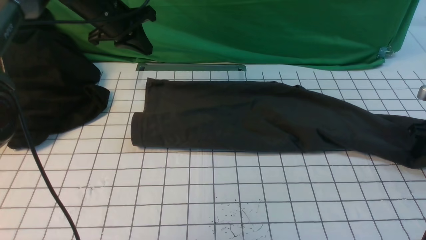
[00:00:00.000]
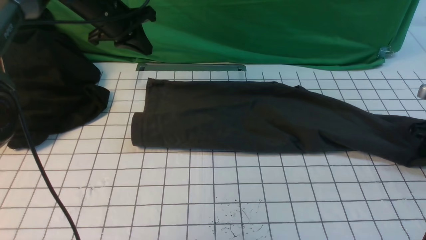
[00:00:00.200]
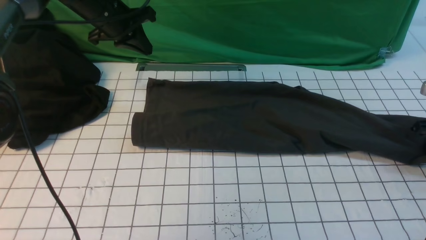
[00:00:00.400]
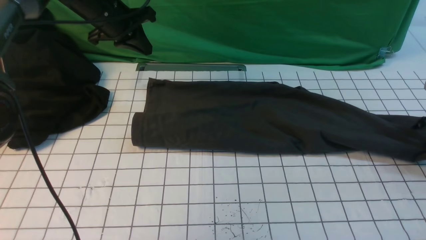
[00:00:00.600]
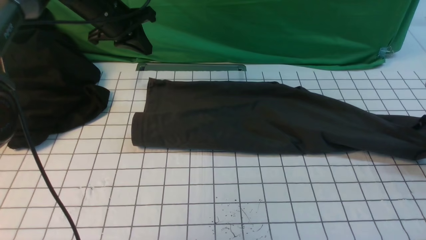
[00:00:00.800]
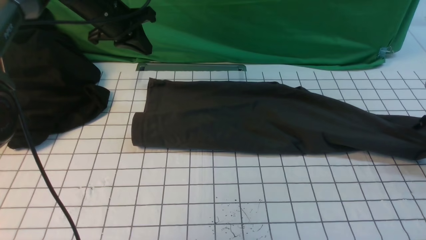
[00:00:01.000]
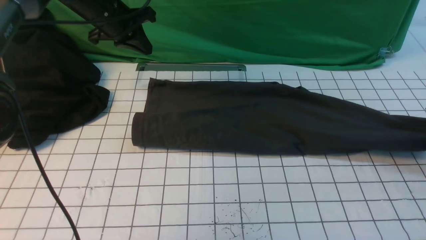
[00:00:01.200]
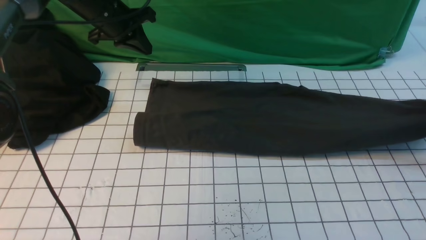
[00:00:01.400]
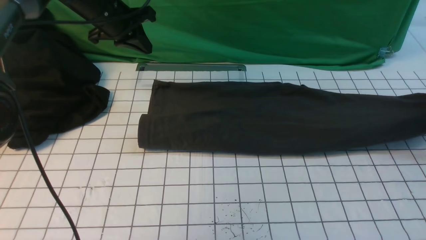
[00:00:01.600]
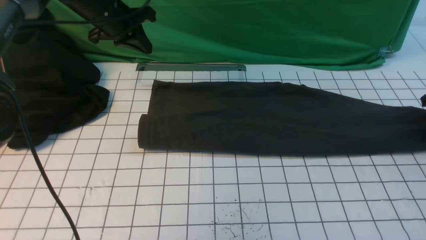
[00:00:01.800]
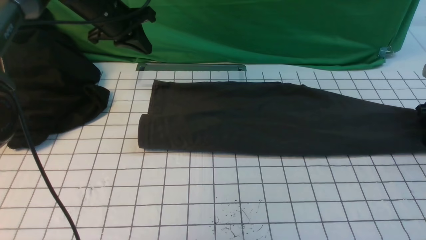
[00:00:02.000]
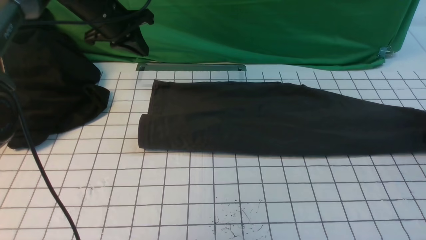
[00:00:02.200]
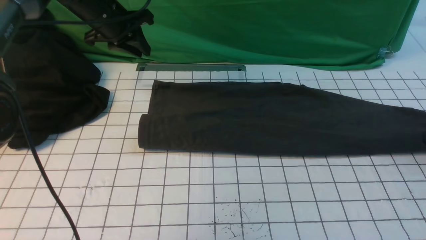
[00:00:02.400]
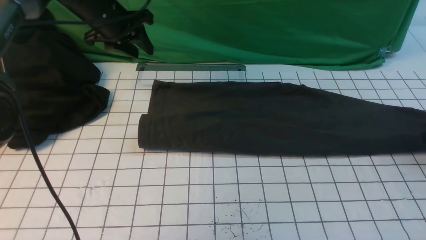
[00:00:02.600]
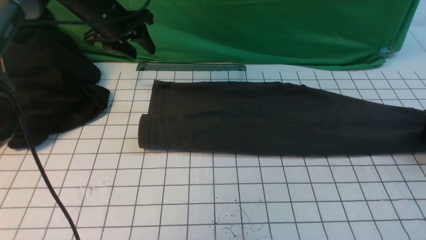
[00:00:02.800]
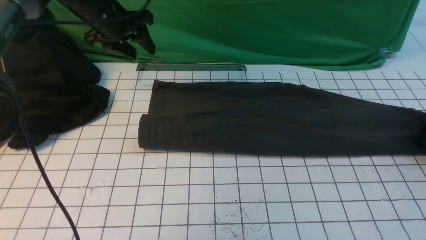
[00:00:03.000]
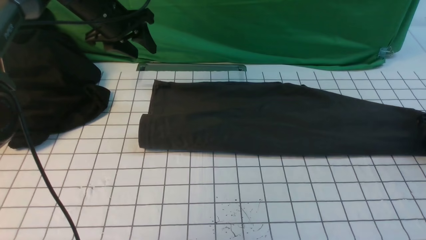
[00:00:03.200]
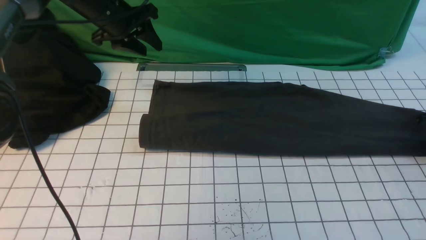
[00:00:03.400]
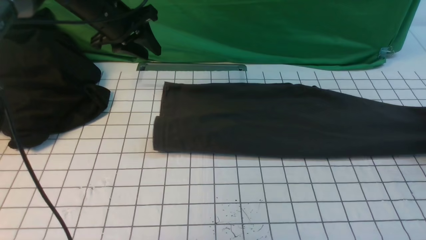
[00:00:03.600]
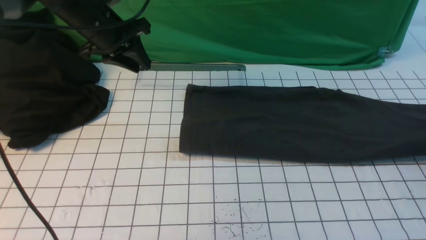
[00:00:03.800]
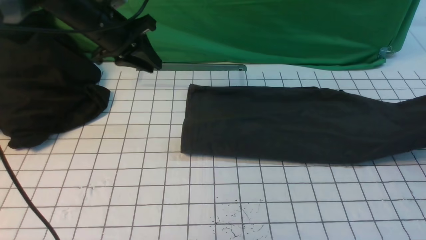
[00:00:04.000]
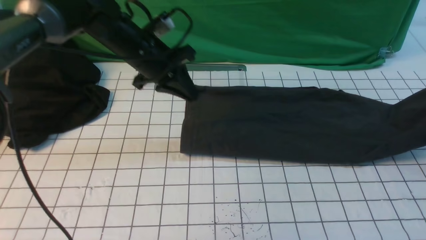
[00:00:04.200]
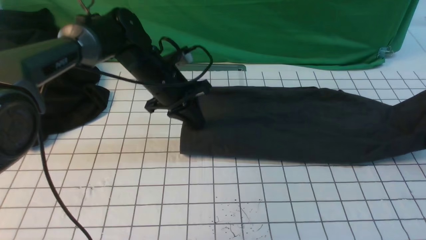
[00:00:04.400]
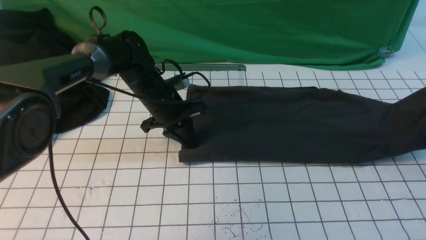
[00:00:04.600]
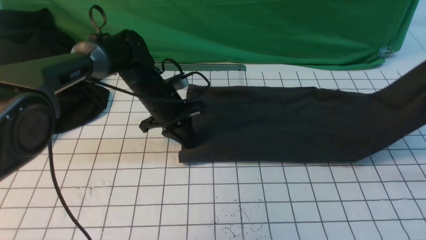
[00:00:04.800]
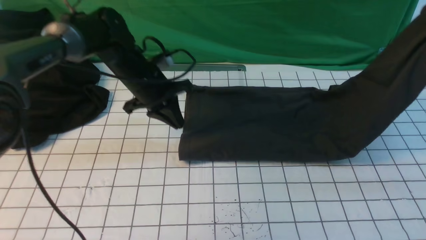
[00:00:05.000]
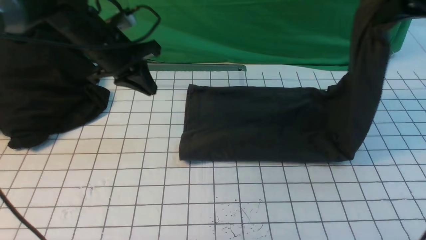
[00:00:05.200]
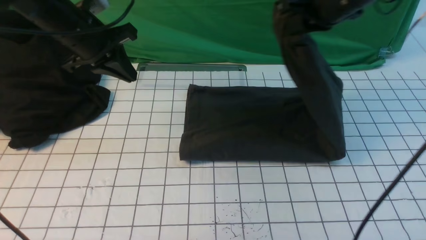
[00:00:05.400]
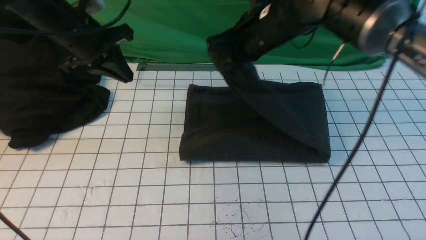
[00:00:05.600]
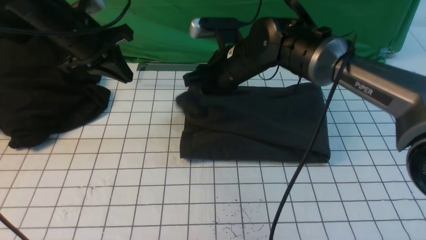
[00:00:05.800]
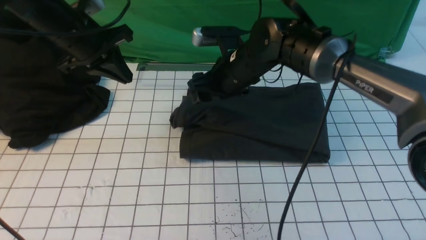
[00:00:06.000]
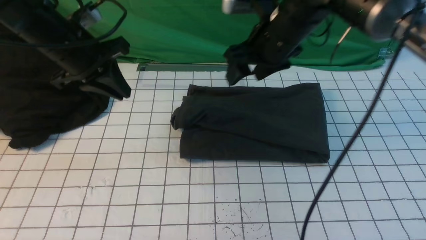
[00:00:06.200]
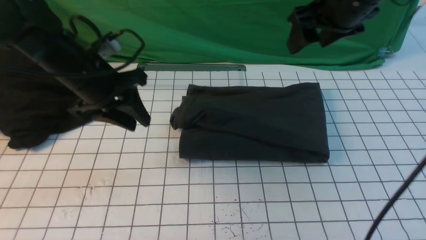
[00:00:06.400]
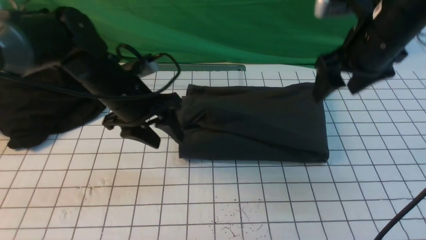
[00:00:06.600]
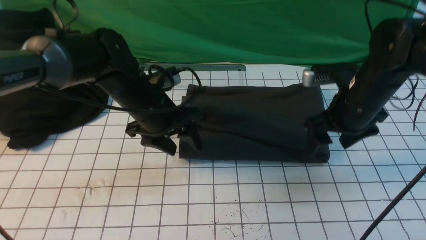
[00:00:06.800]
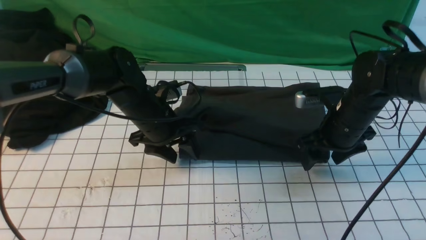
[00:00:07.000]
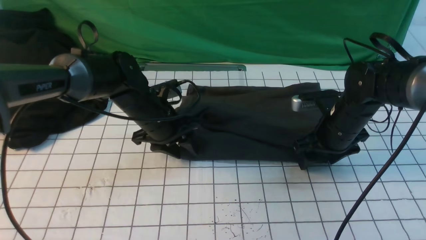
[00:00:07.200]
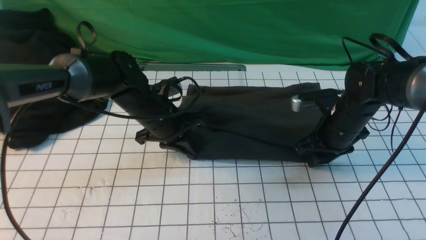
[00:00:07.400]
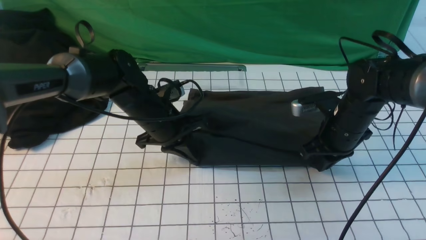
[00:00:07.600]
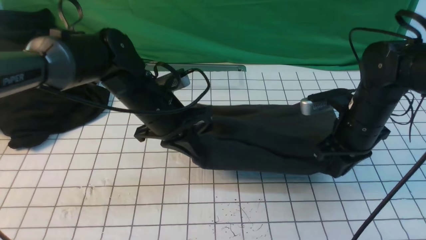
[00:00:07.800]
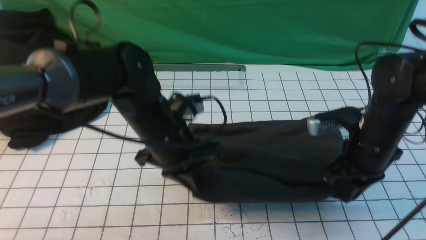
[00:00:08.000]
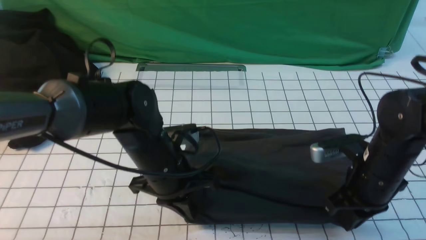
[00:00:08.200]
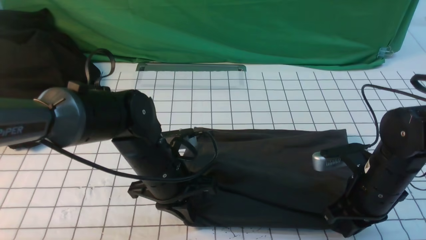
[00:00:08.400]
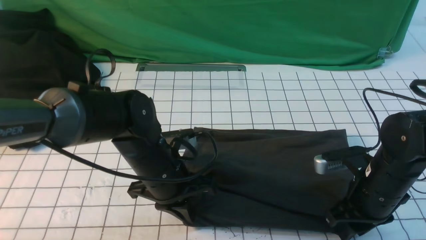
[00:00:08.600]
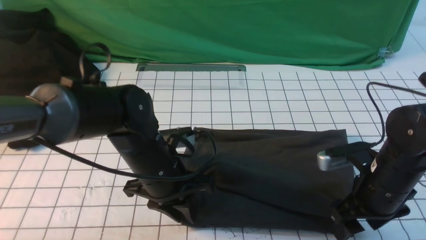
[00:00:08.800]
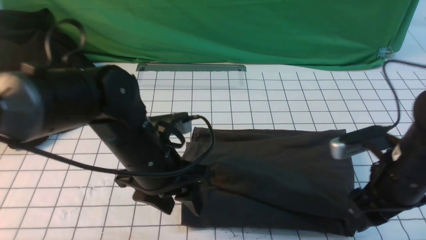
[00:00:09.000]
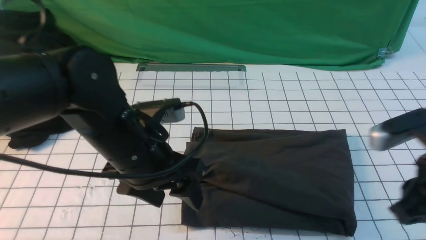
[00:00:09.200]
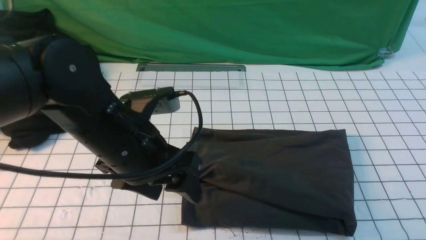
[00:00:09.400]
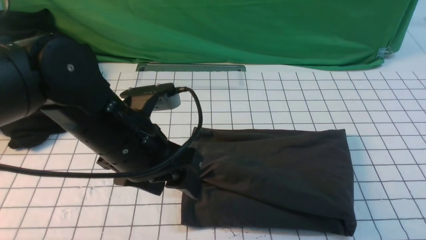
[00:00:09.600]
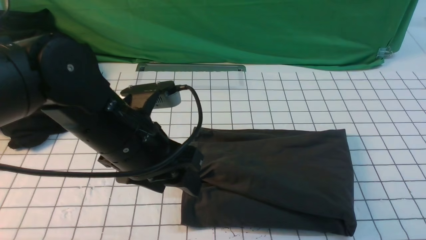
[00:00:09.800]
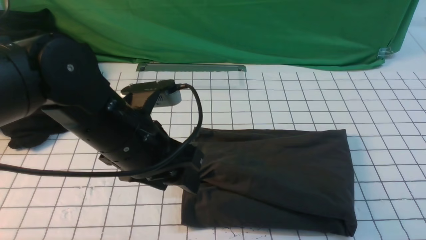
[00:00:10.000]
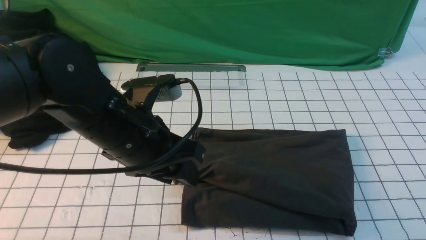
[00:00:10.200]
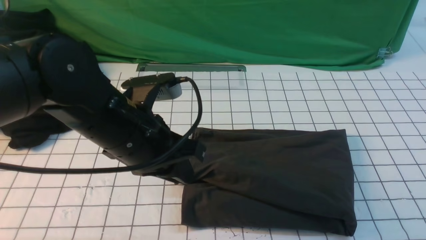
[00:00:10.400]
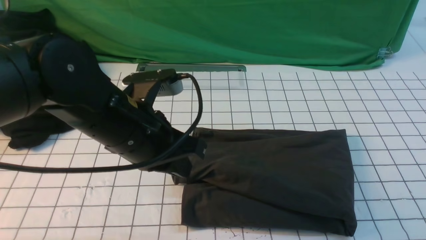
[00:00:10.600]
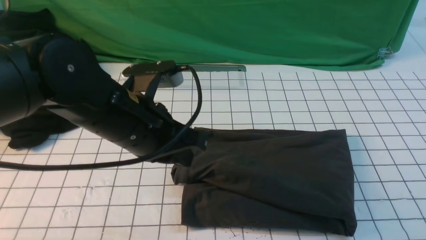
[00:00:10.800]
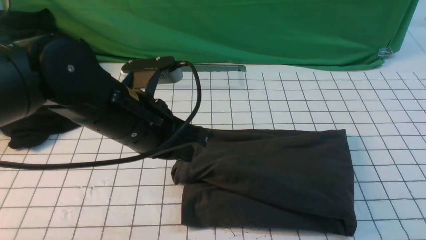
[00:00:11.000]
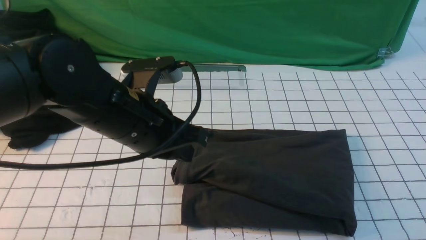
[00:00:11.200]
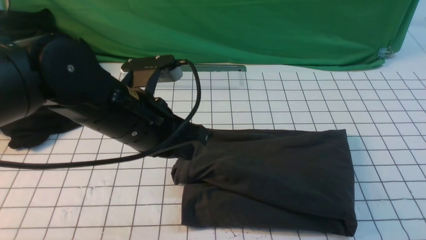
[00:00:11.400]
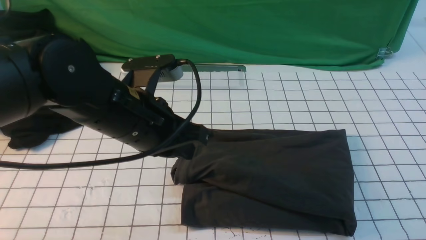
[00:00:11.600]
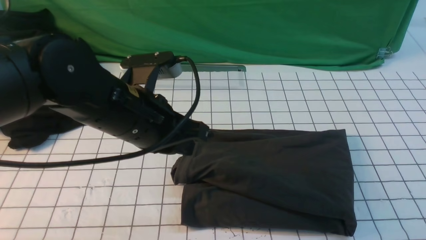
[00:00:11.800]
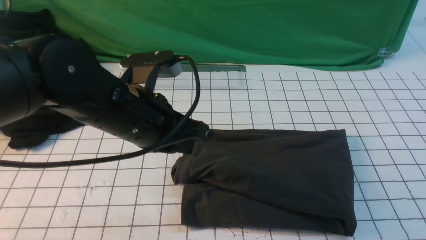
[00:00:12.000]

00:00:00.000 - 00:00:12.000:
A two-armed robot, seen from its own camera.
Step, 00:00:00.000 - 00:00:03.200: use the right arm to clamp the right edge of the fabric.
Step, 00:00:03.400 - 00:00:05.800: use the right arm to drag the right edge of the fabric to the left and folds it over the left edge.
00:00:00.000 - 00:00:01.600: The right gripper goes about 5 cm upward.
00:00:01.600 - 00:00:03.000: The left gripper opens up, while the right gripper shifts approximately 5 cm downward, and opens up.
00:00:03.000 - 00:00:04.400: The left gripper travels to the right, downward and backward by about 15 cm, and closes, while the right gripper is displaced upward by about 15 cm, and closes.
00:00:04.400 - 00:00:06.000: The right gripper goes roughly 40 cm to the left, and opens up. The left gripper is displaced to the left and upward by roughly 15 cm.
00:00:06.000 - 00:00:07.600: Both grippers travel together to the right and downward, some 15 cm. The left gripper opens and closes again, while the right gripper closes up.
00:00:07.600 - 00:00:09.000: The right gripper shifts approximately 15 cm backward and upward, and opens its fingers, while the left gripper shifts about 10 cm backward, and opens up.
00:00:09.000 - 00:00:10.400: The left gripper goes roughly 5 cm upward, and closes. Meanwhile the right gripper is displaced backward and upward by some 20 cm, and closes.
00:00:10.400 - 00:00:12.000: The right gripper is displaced downward by about 10 cm.

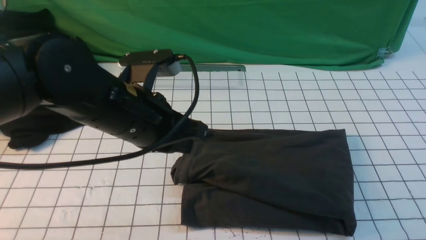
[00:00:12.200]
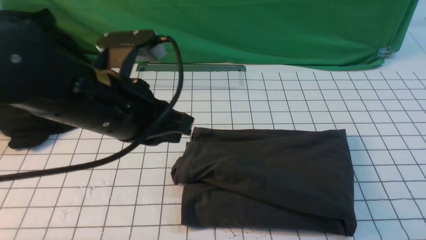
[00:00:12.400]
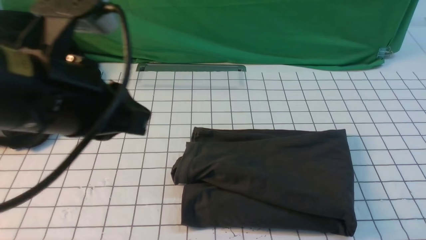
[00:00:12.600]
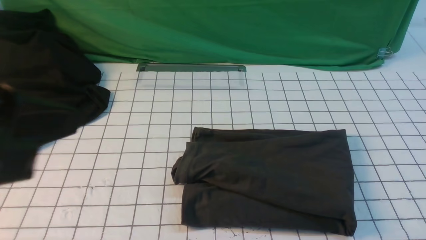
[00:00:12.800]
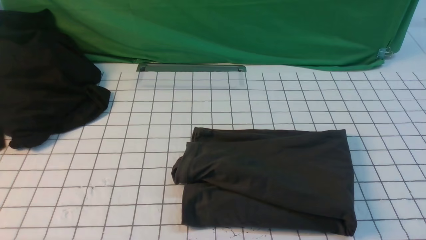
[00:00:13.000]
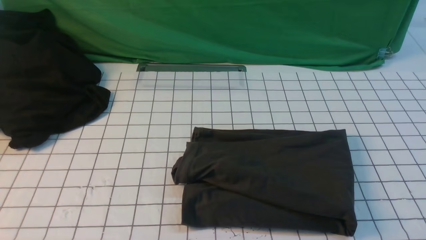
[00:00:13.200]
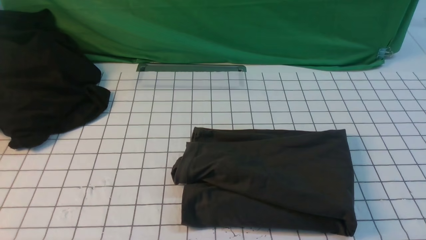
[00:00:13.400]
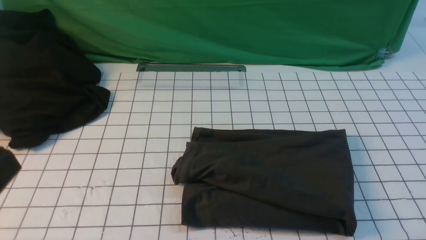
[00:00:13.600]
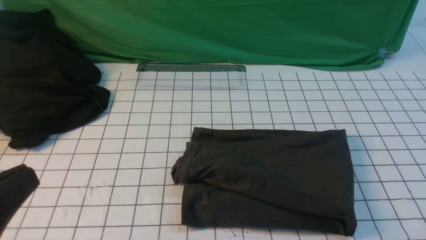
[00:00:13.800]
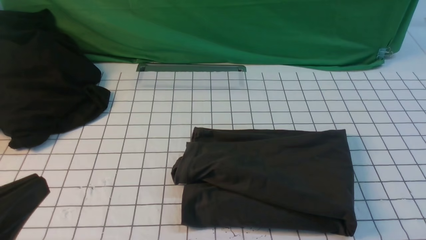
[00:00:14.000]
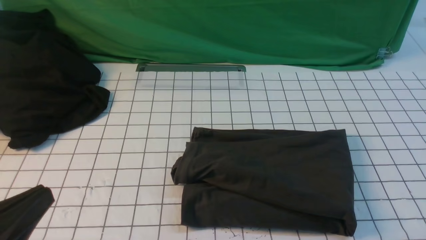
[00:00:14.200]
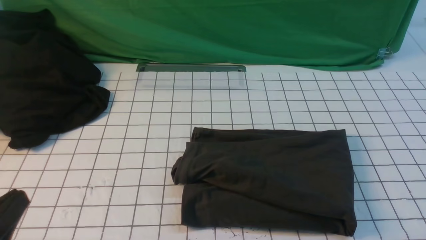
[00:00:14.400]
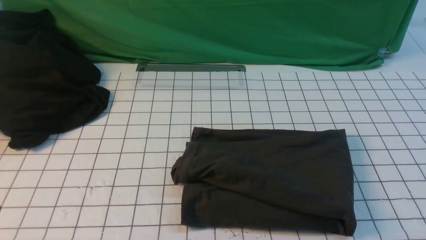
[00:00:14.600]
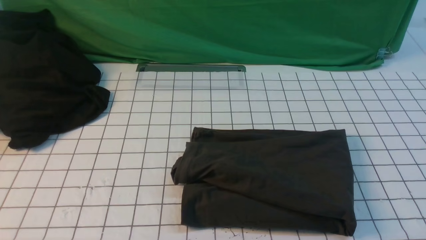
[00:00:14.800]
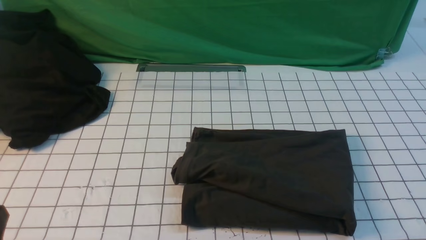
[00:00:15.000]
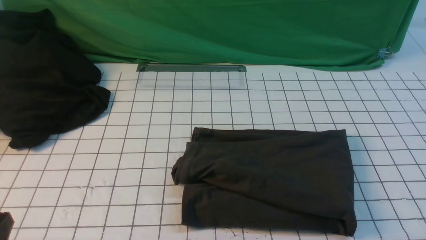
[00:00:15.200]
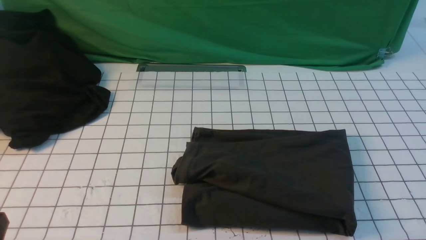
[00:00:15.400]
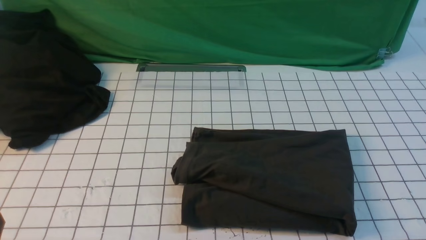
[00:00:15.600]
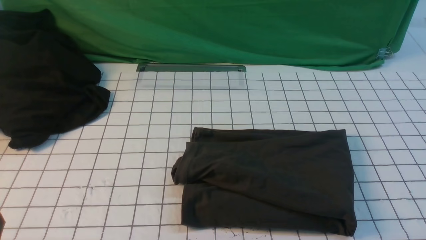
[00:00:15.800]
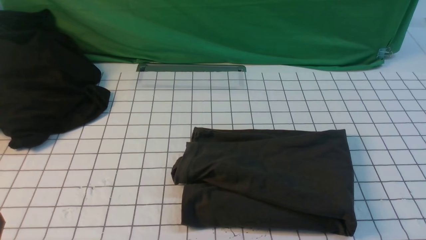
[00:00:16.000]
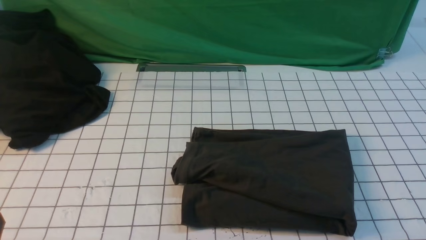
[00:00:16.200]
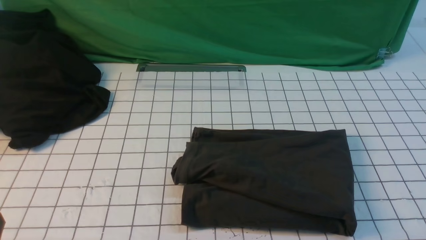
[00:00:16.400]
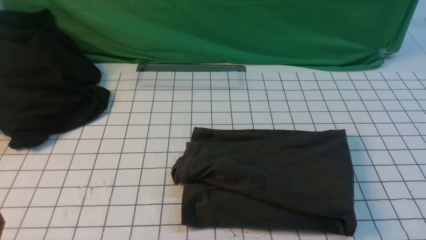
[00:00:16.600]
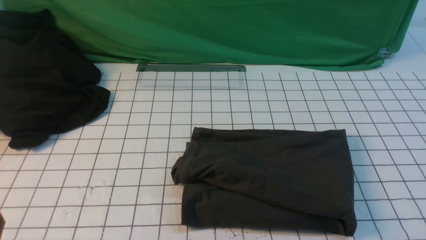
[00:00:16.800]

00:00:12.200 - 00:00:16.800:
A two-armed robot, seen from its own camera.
00:00:12.200 - 00:00:13.800: The left gripper shifts approximately 25 cm backward and to the left.
00:00:13.800 - 00:00:15.200: The left gripper goes about 10 cm downward.
00:00:15.200 - 00:00:16.800: The two grippers keep their place.
